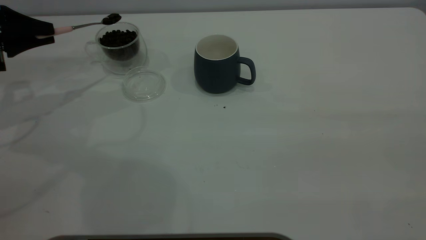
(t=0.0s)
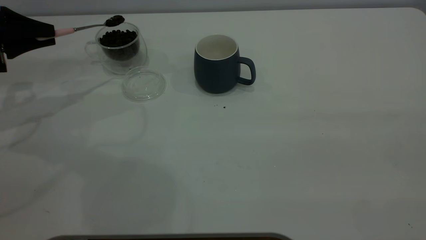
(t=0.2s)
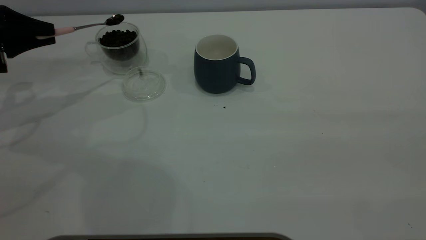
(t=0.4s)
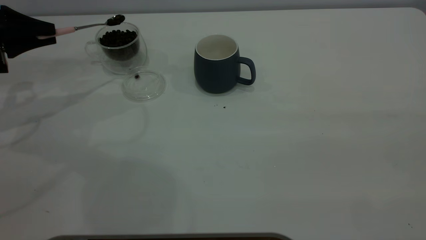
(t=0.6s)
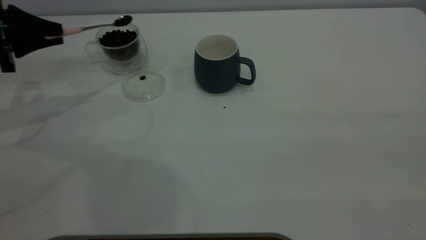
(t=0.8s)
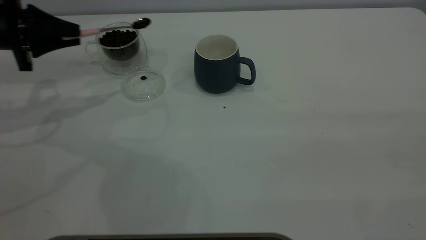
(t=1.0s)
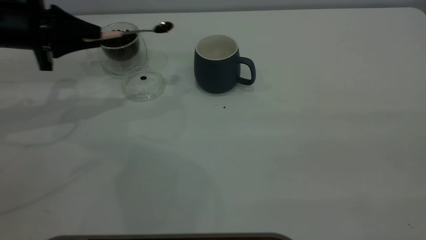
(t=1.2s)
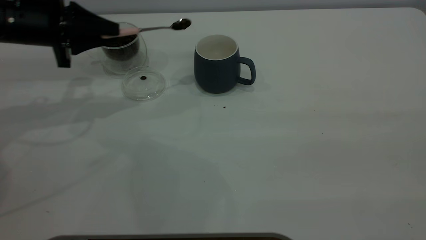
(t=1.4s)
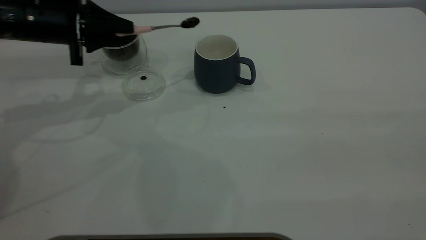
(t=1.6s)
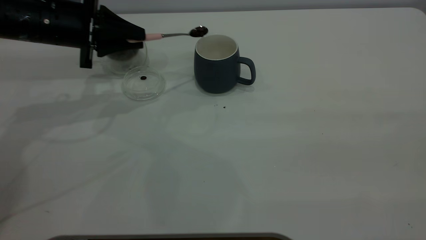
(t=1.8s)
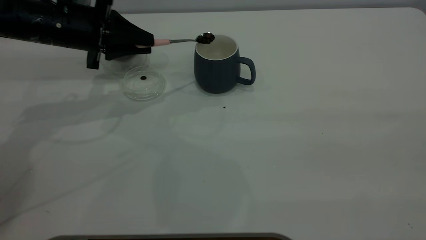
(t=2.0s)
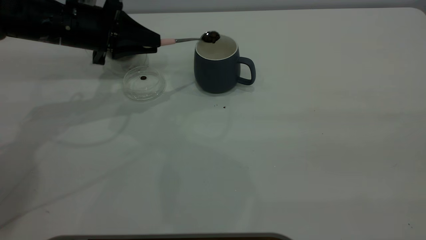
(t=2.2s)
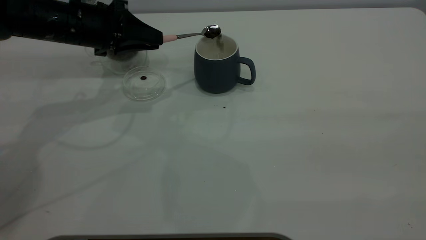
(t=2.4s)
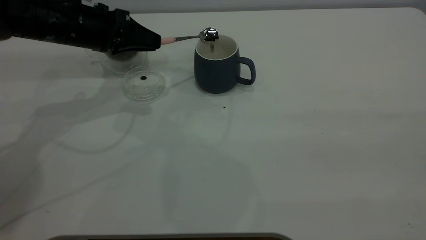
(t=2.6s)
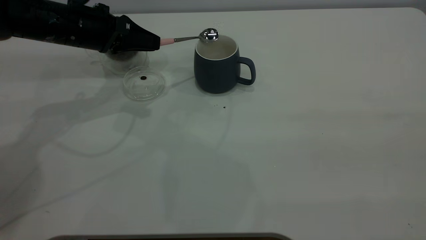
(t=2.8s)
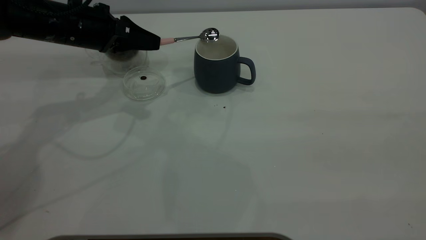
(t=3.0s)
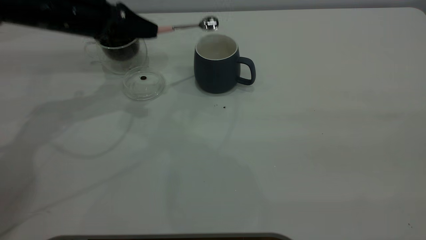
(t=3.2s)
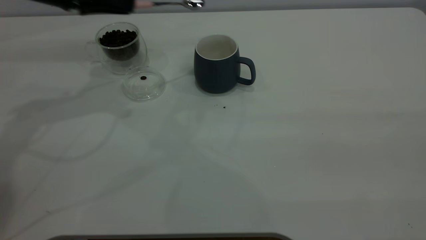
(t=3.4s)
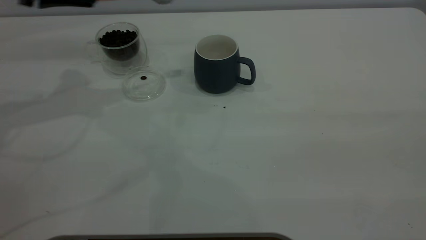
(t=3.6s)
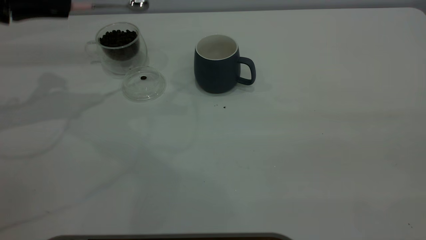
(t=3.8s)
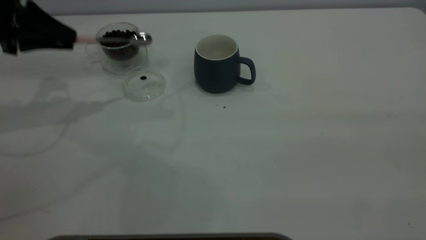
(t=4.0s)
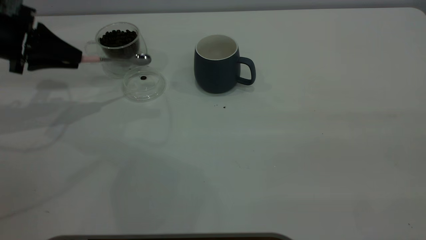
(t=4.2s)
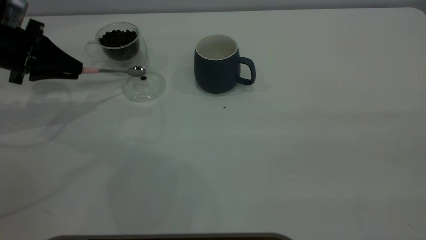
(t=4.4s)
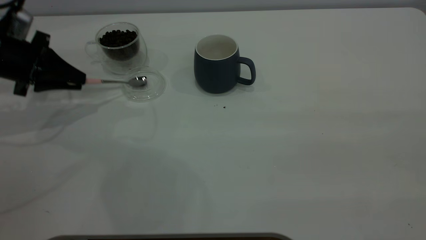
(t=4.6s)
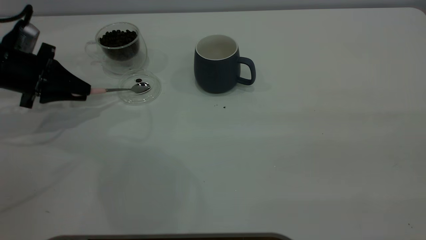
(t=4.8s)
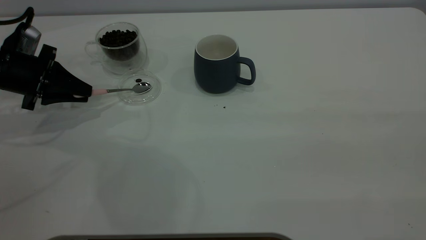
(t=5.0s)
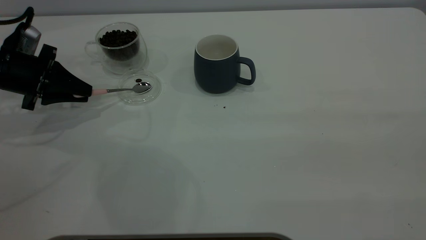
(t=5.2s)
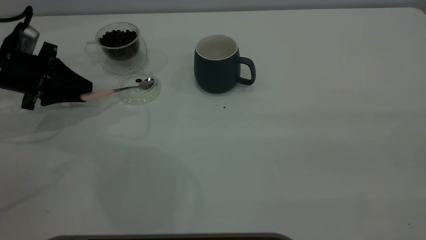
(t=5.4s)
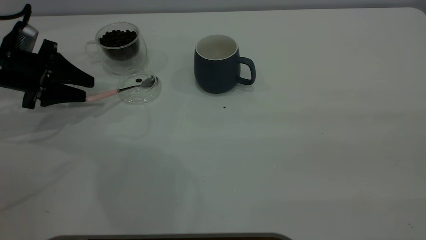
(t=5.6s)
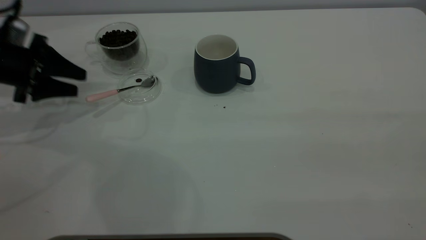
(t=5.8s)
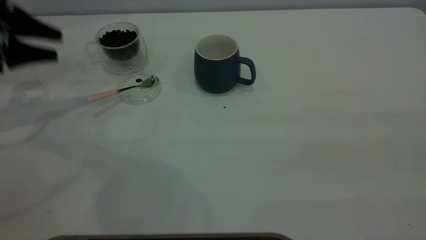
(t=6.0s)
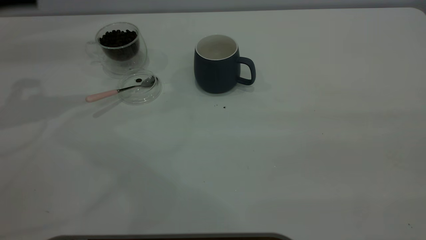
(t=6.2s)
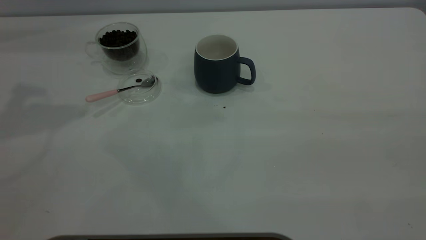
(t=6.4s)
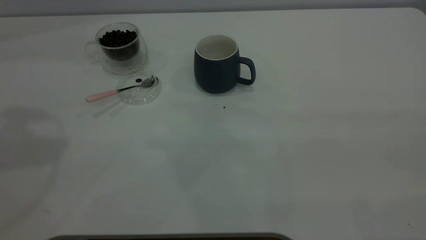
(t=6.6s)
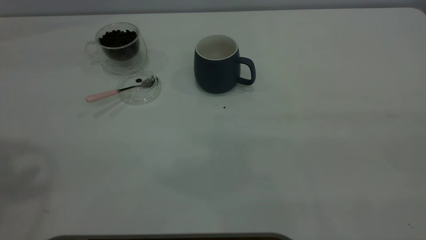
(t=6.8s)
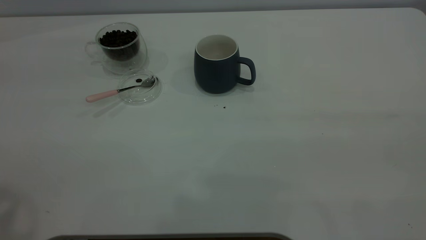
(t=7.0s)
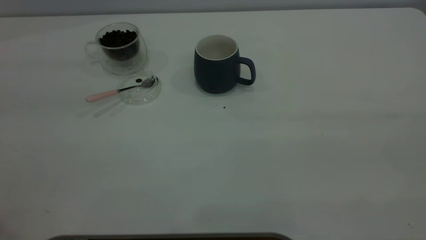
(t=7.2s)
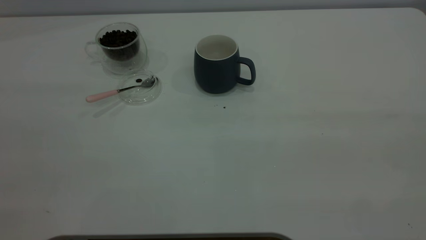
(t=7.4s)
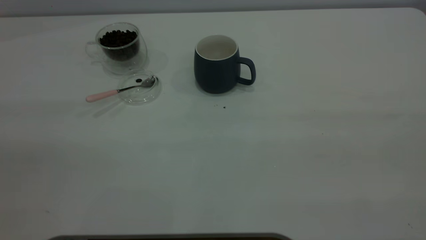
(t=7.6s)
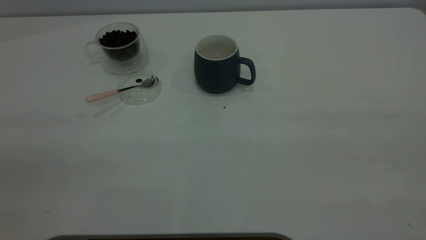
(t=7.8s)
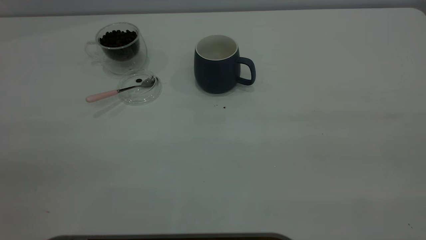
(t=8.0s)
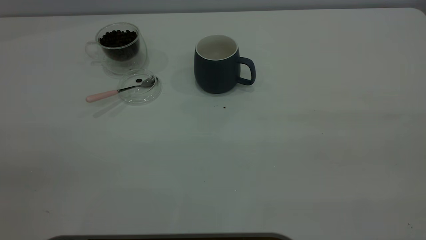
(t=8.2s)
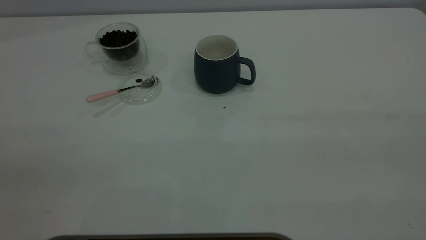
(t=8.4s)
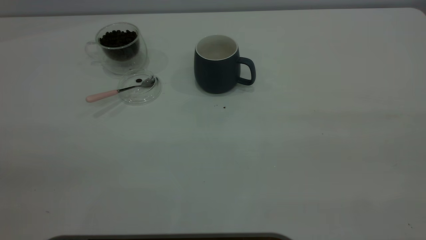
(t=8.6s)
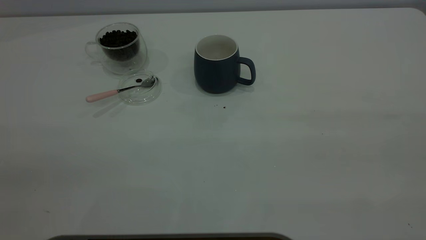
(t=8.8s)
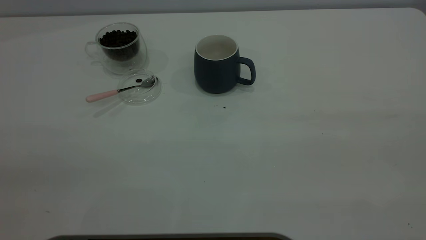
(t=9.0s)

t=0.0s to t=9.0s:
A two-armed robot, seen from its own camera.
Task of the whole recording: the right gripper place the grey cup in the center of the table, the left gripper take the pink spoon from the cup lid and scoop out the coffee beans from the coffee cup and put them into the grey cup, the left gripper put the spoon back into the cup lid.
Step, t=0.0s to t=3.2s: Scoop a spoonful of beans into the cup.
Step, t=3.4s to t=5.8s: Place the spoon back in its original place.
t=0.0s to t=1.6s: The left gripper heads to the right, covering roughly 15 cm.
t=3.0s to t=4.4s: The left gripper travels to the left by approximately 10 cm.
t=4.4s to t=6.0s: The left gripper heads upward, covering roughly 5 cm, and opens up.
t=6.0s to t=7.6s: The left gripper is displaced backward and upward by roughly 40 cm.
